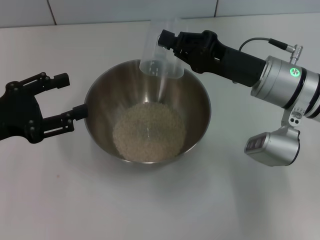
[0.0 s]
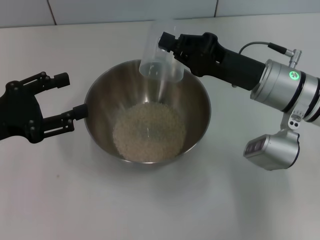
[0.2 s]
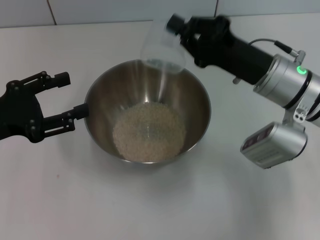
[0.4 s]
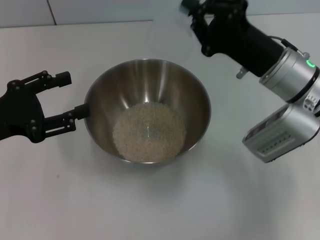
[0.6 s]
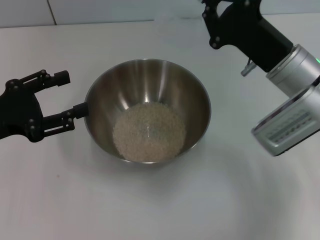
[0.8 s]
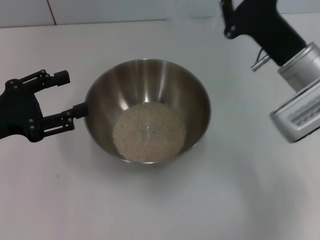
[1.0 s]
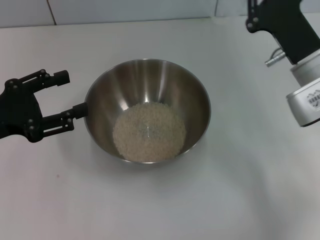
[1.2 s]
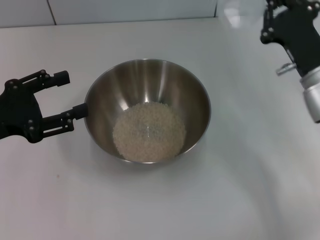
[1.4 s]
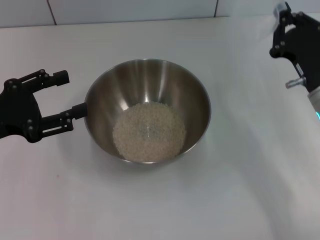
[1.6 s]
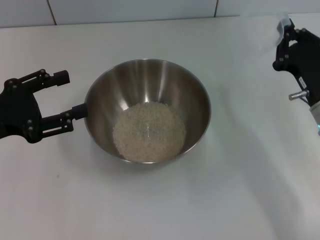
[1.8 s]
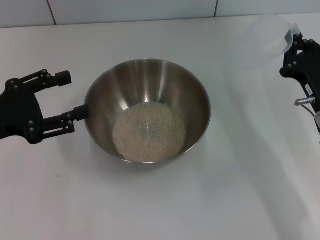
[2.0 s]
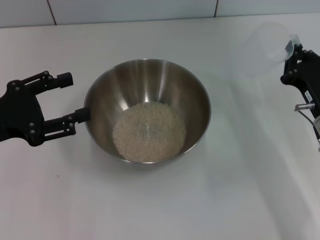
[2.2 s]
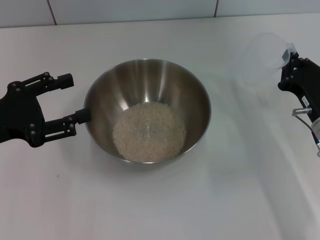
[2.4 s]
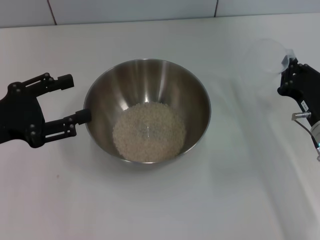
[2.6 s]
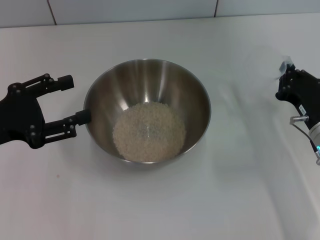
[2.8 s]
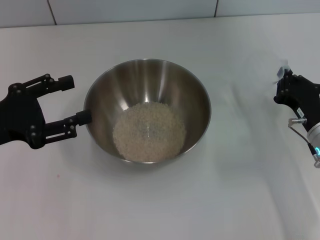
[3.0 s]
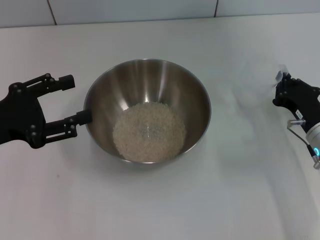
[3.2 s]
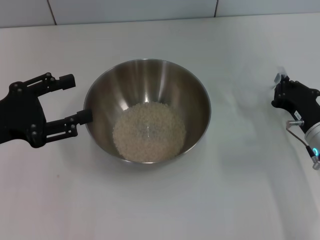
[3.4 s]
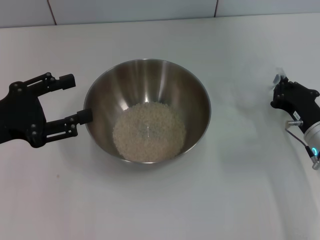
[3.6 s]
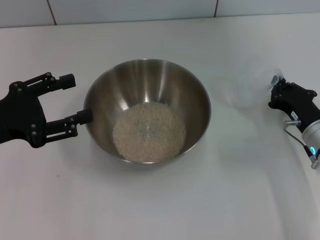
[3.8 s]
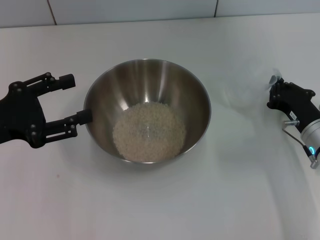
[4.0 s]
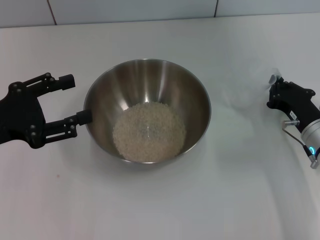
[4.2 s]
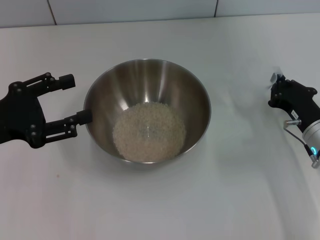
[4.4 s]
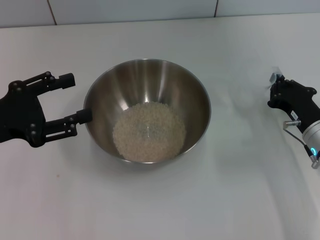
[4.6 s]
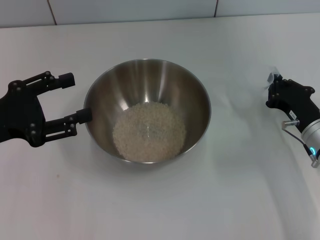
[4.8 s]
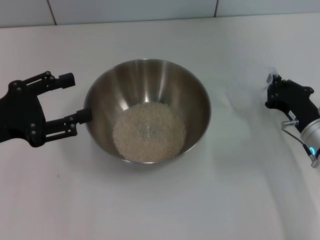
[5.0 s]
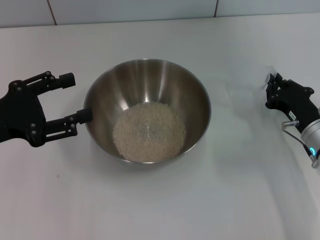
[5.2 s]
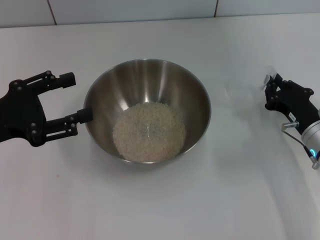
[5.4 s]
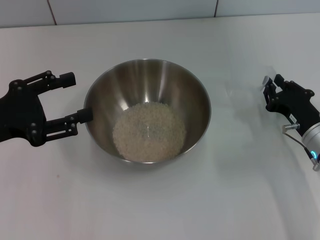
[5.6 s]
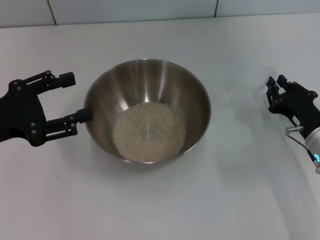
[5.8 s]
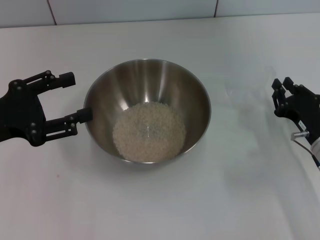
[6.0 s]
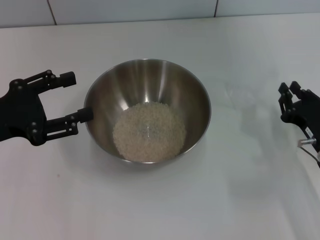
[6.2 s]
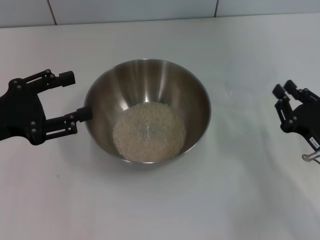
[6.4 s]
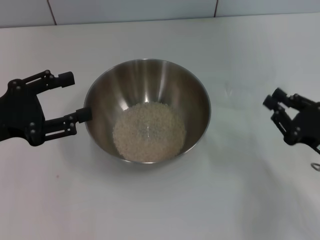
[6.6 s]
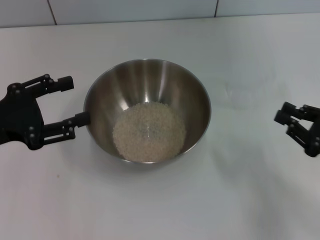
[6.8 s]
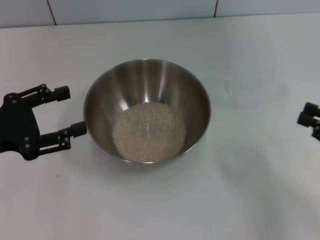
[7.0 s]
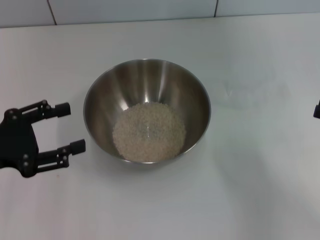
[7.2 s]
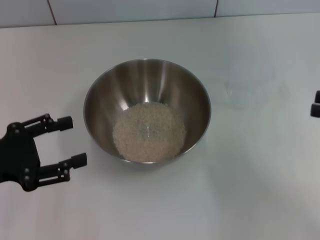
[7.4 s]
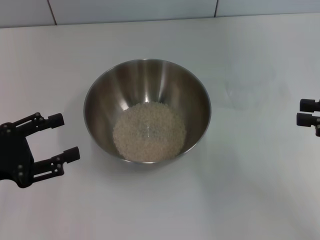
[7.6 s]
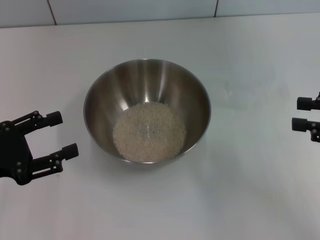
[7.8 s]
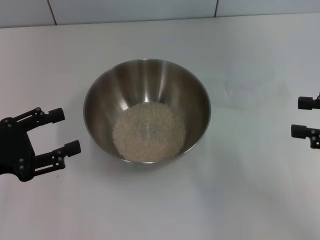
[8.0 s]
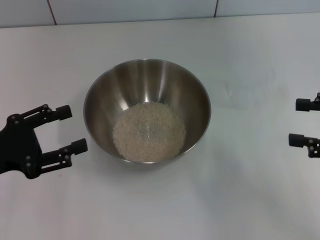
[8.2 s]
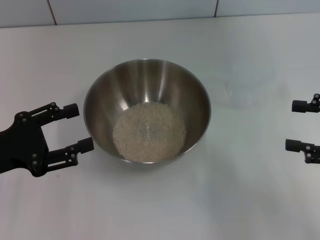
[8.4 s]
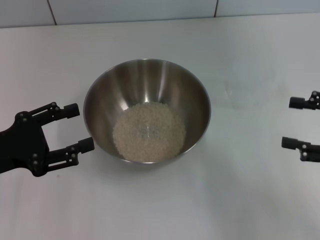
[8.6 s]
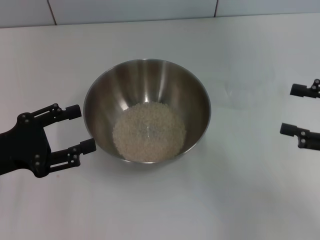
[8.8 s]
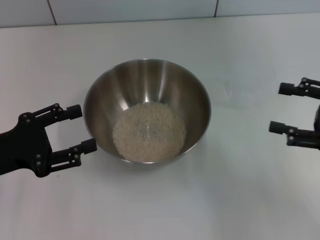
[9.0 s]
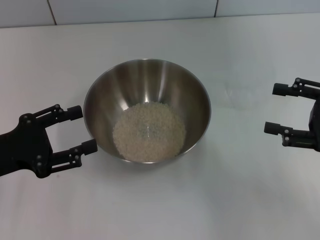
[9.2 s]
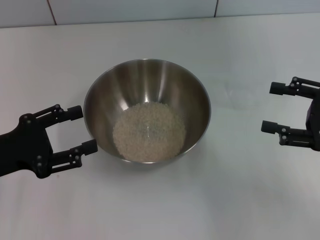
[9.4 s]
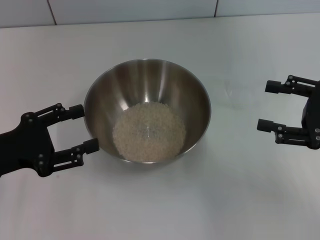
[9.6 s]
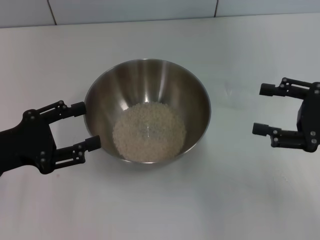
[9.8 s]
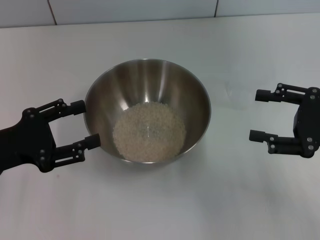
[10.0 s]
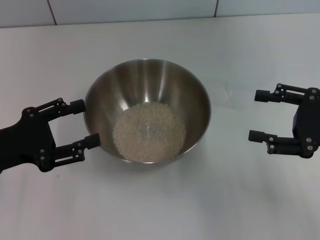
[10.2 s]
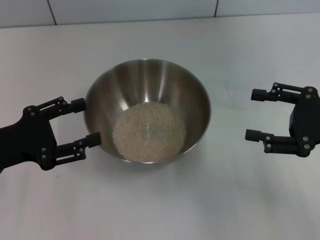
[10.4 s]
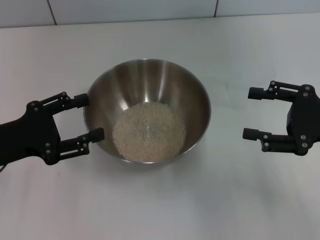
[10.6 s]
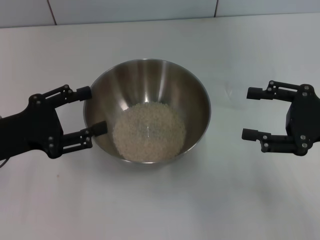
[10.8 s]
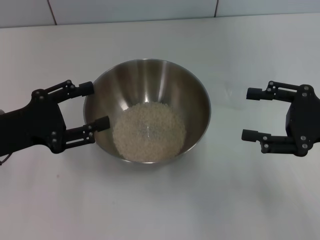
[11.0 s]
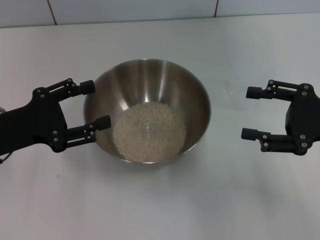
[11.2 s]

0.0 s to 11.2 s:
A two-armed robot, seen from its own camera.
Task of the whole recording: Place the bowl in the middle of the table with one hand and pour the rice from the grain cup into it with the other hand.
Step, 0.6 to 6.2 s: Place the cup on the table with the right gripper.
0.0 to 1.6 s: The right gripper shifts roughly 5 cm to the right.
1.6 to 3.2 s: The right gripper is displaced downward by approximately 5 cm.
3.2 to 4.8 s: The two grippers keep their place.
4.8 to 6.4 s: The right gripper heads backward, covering approximately 5 cm.
6.4 to 8.0 s: The left gripper shifts by some 5 cm. Meanwhile the right gripper shifts about 15 cm upward and to the right.
8.0 to 9.6 s: The right gripper opens up.
9.6 to 11.2 s: There are only small adjustments of the grippers.
